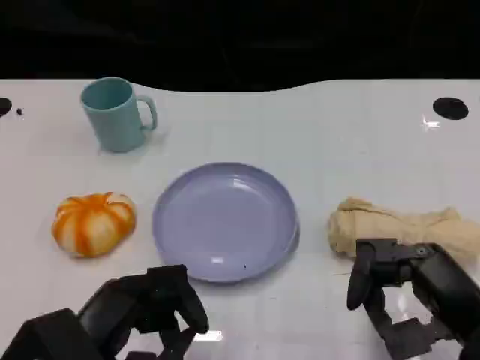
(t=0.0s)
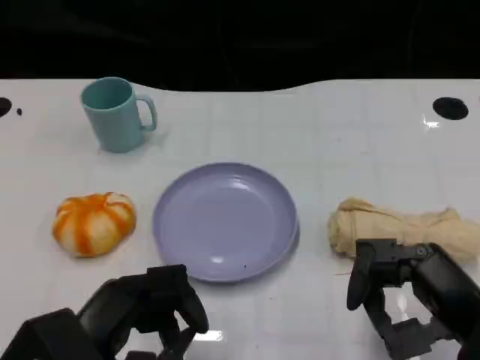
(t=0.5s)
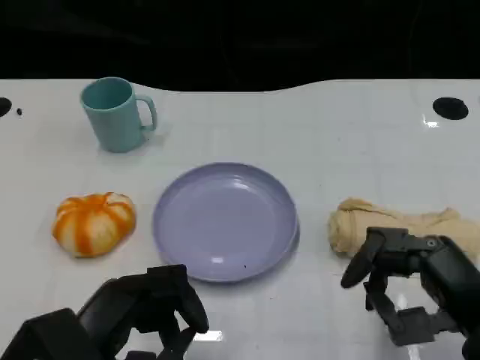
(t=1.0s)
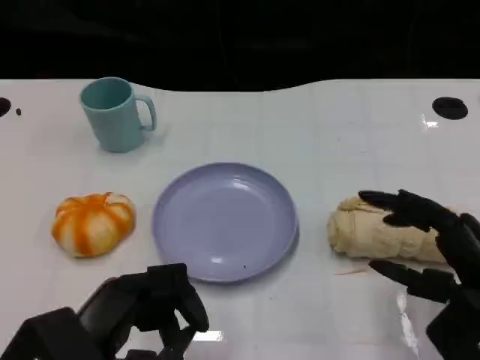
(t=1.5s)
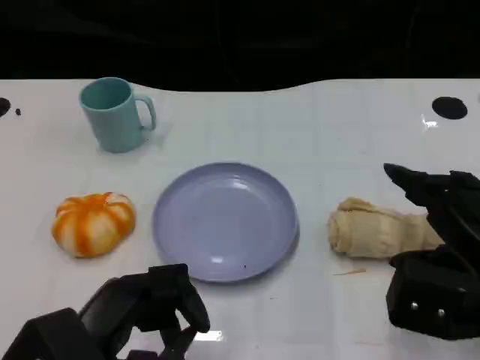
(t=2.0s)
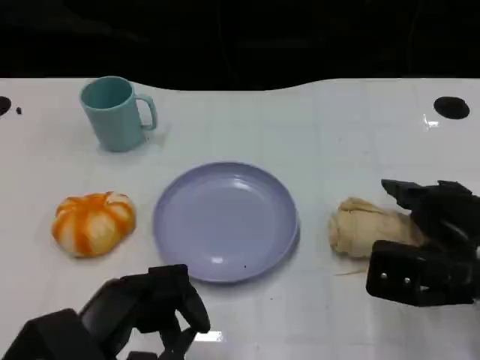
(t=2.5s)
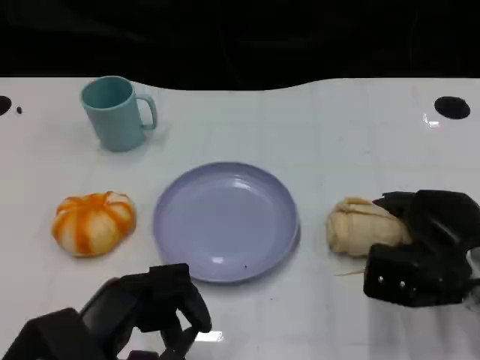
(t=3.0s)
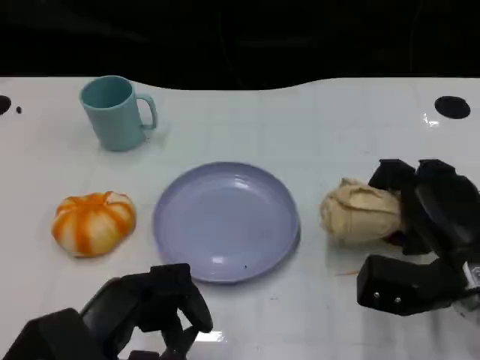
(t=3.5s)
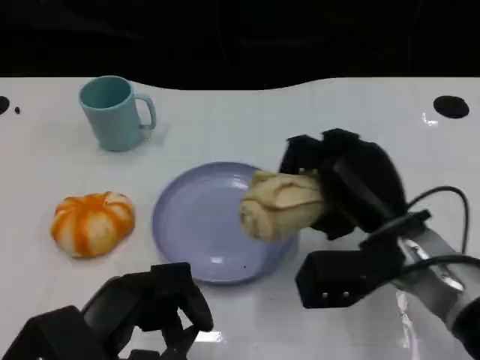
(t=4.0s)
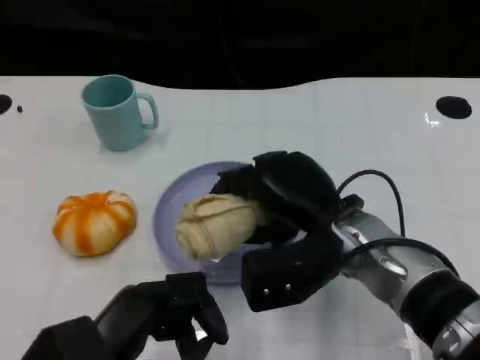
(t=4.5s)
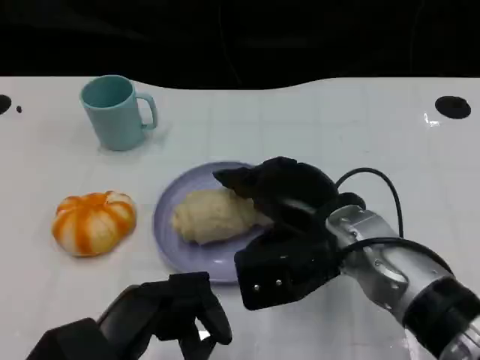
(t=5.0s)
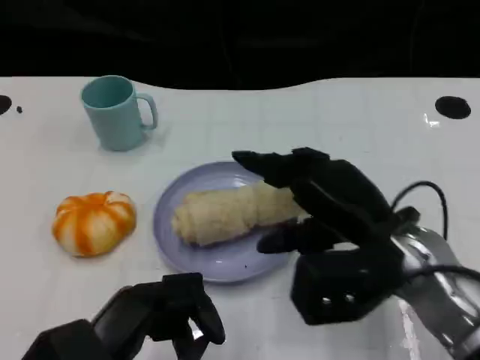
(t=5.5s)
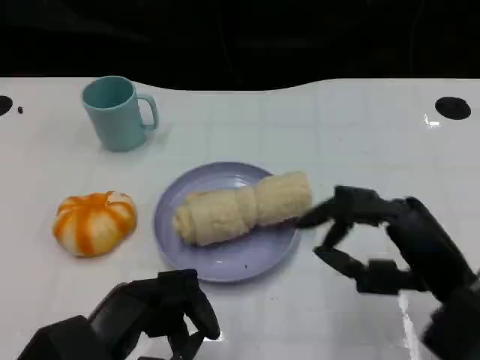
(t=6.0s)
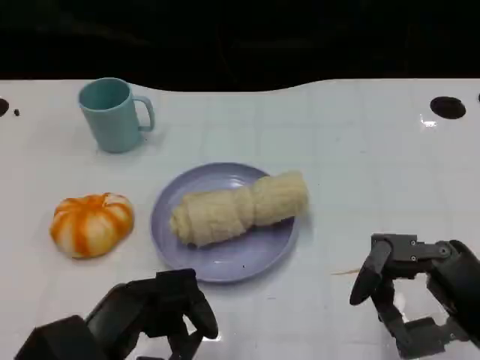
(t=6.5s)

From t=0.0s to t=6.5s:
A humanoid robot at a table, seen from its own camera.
Task of the whole recording: Grasp the towel on the left side of the plate with the left hand and place it into the plate.
From t=0.0s to t=2.0s: The right hand shifts by roughly 5 cm.
From t=2.0s to t=4.5s: The right hand goes about 15 cm to the left and forward.
From t=4.5s to t=6.5s: The right hand travels to the right and backward by about 20 cm.
